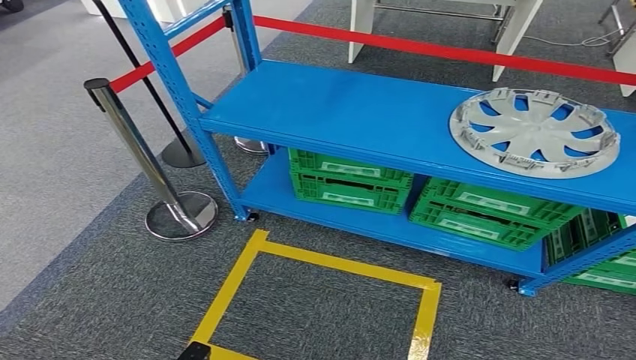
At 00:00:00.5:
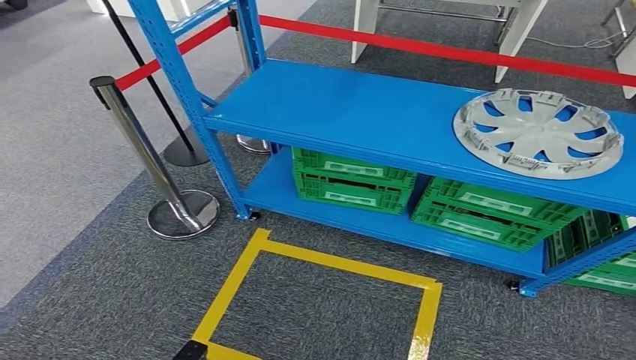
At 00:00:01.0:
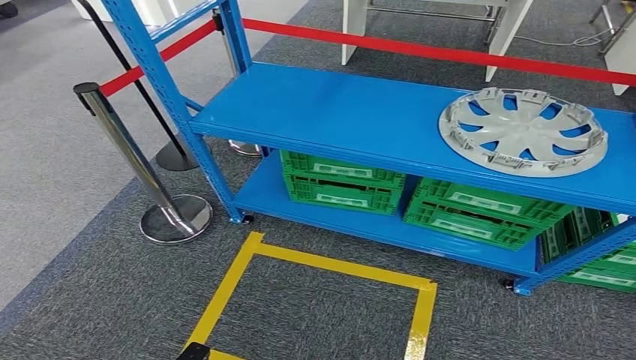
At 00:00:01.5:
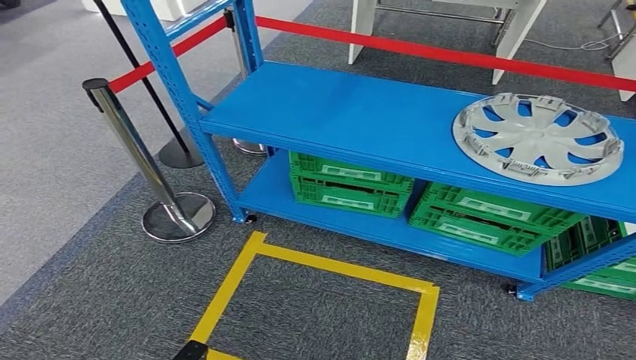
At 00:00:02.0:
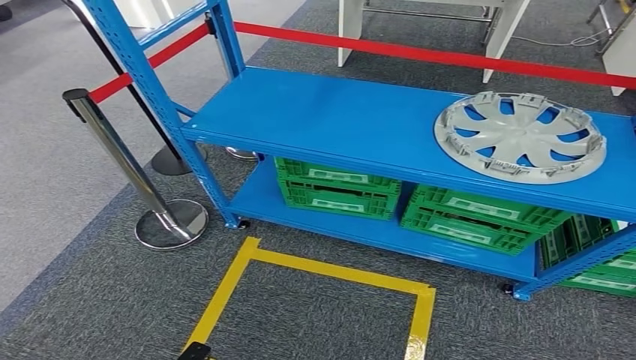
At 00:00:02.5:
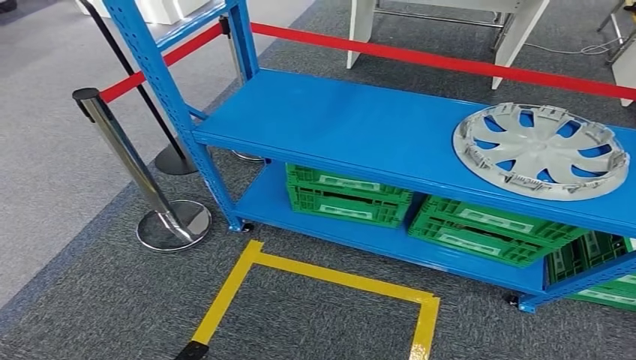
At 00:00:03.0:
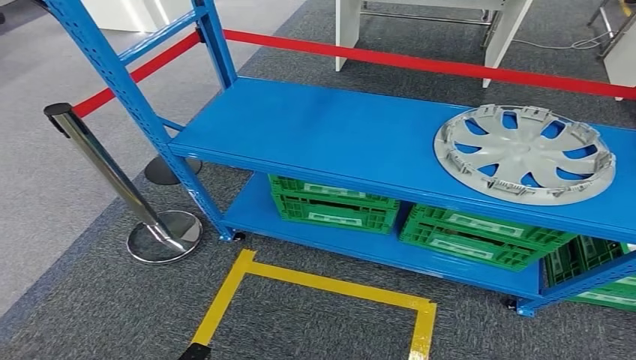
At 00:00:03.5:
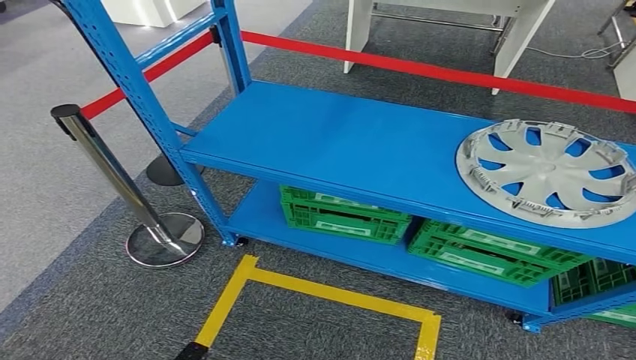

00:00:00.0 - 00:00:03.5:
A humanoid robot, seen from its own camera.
Step, 00:00:00.0 - 00:00:03.5: Return to the initial position at the workbench.
